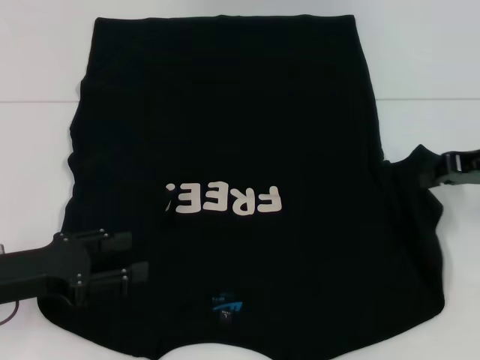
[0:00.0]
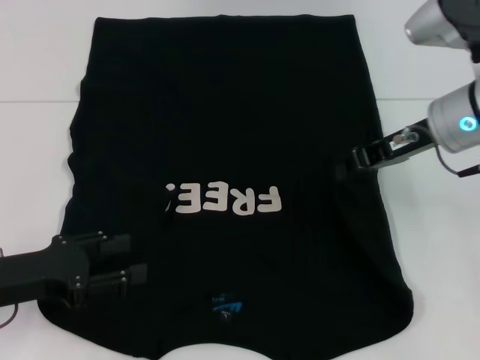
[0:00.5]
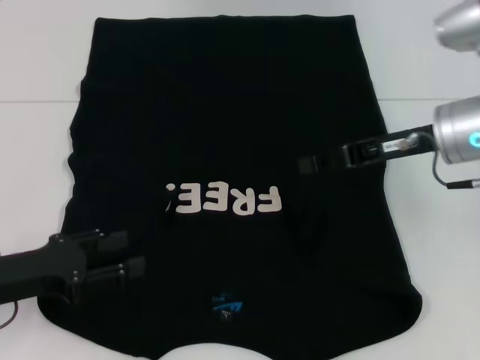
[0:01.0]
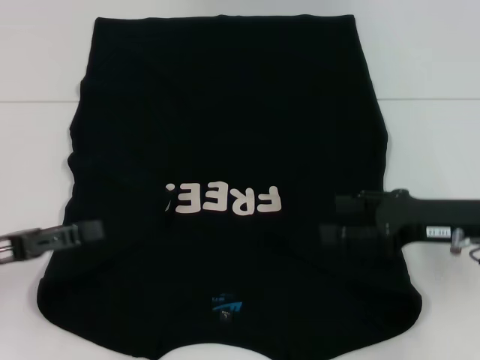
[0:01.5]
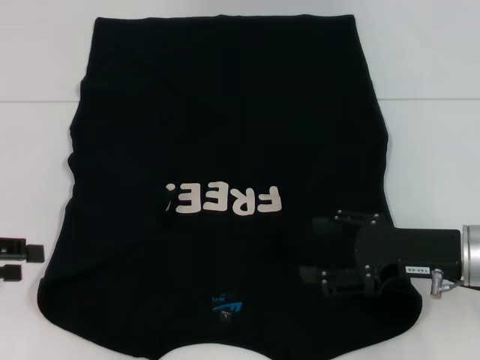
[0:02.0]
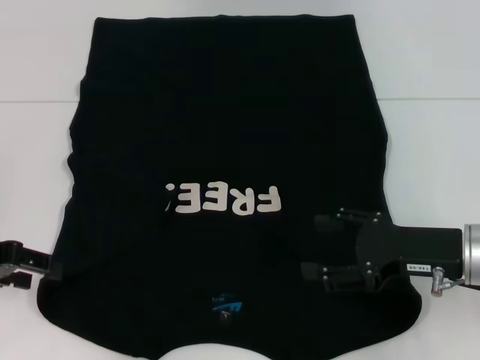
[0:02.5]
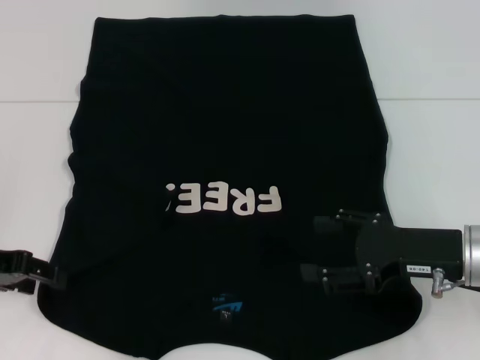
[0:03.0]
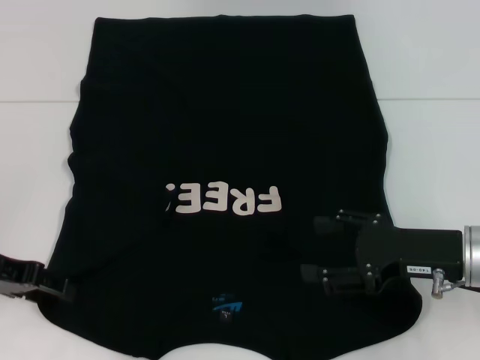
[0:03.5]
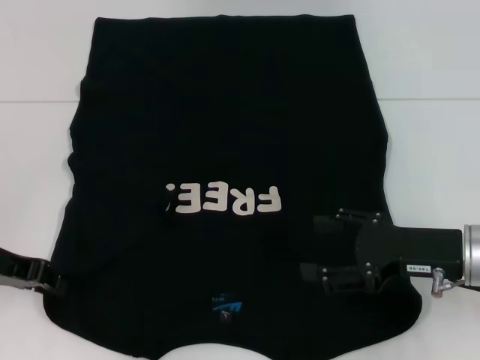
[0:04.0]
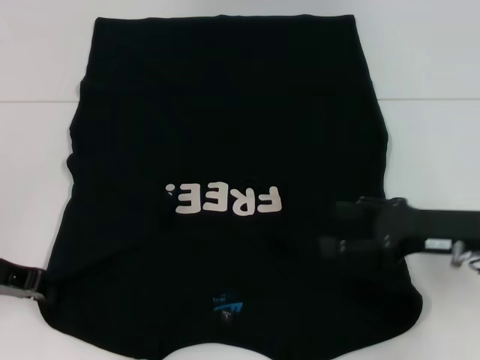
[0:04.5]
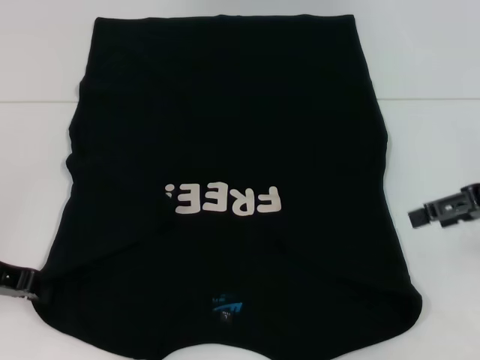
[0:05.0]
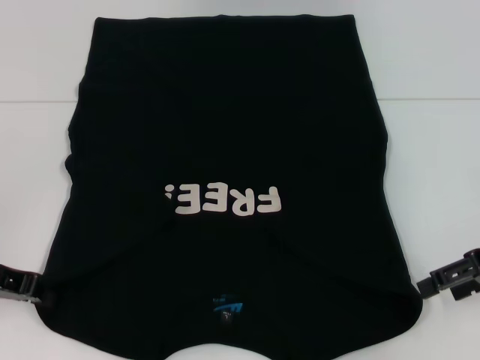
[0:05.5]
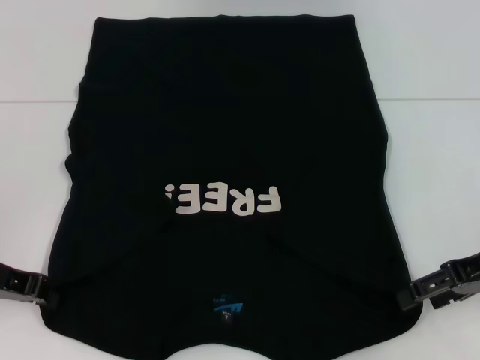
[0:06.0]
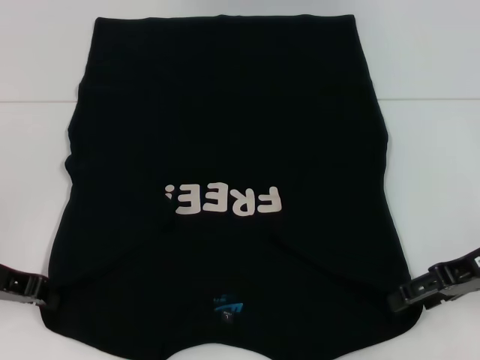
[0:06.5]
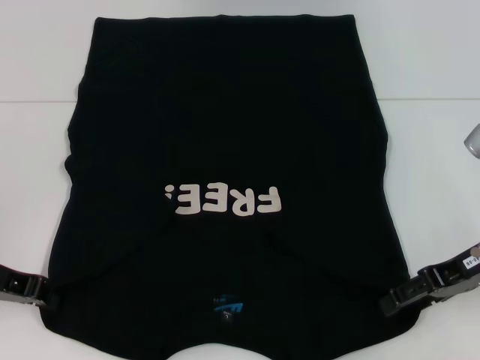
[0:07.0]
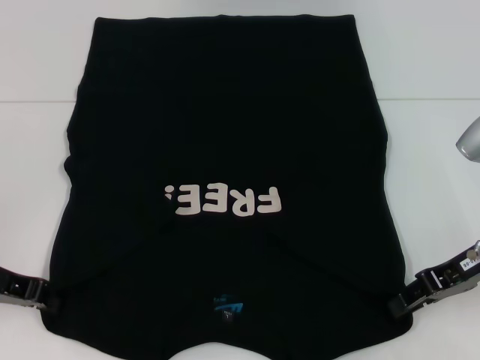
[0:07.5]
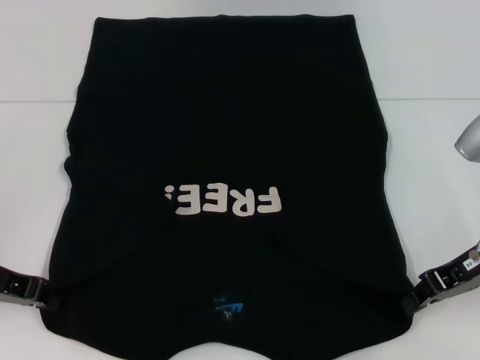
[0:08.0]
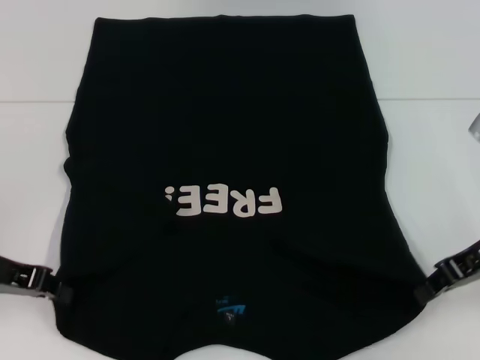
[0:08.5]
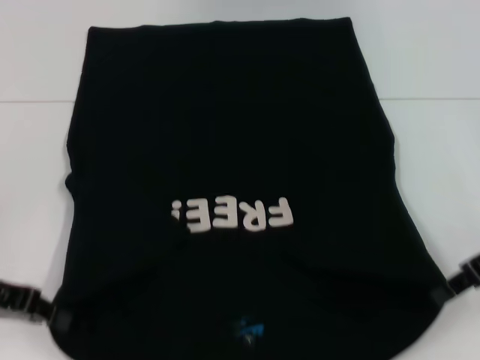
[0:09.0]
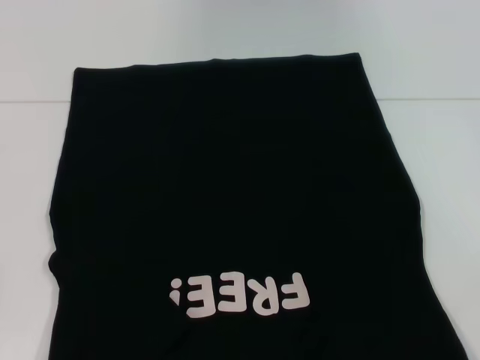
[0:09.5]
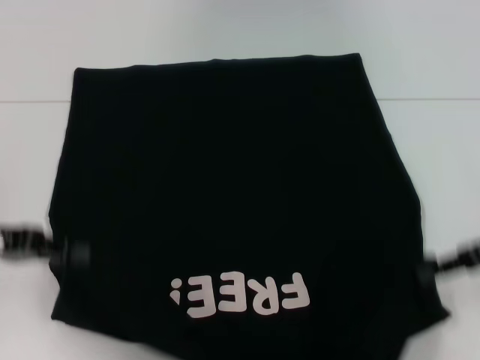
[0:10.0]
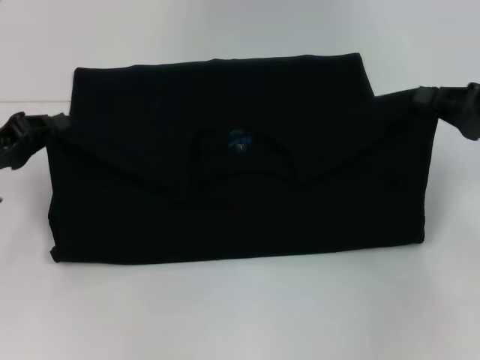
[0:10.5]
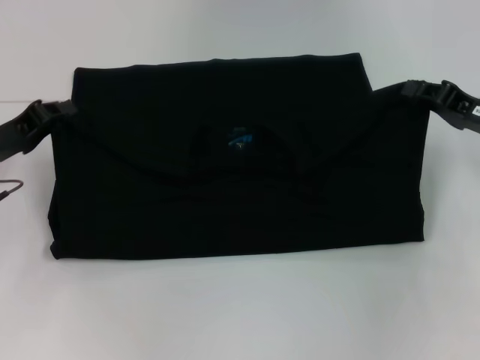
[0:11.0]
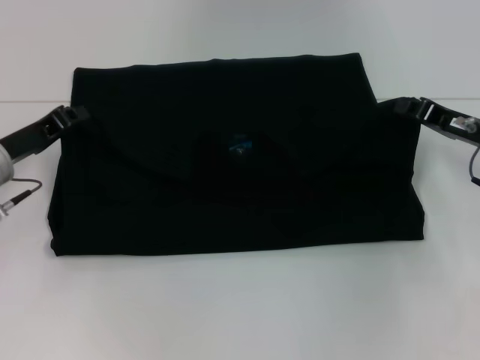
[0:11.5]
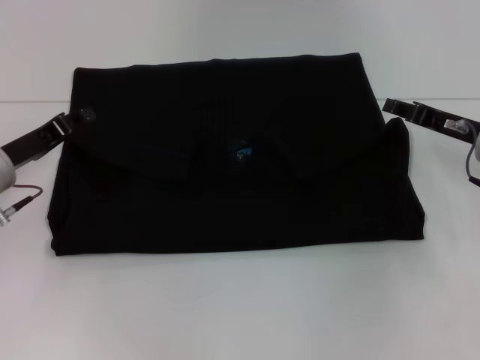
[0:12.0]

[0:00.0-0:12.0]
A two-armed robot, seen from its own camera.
Step, 0:01.5 to 0:04.5: Grab the bottom left corner with your left hand.
Step, 0:05.0 to 0:08.0: Grab the bottom right corner with your right hand.
Step, 0:08.5 to 0:12.0: Fold the clothes with your left hand.
Step, 0:08.5 to 0:12.0: Fold the clothes with your right hand.
0:00.0 to 0:02.0: The right gripper is displaced backward, downward and to the left by some 15 cm, and opens its fingers. The left gripper goes roughly 10 cm to the left and upward.
0:02.0 to 0:04.0: The left gripper shifts about 5 cm to the right.
0:04.0 to 0:06.0: The left gripper closes up; the right gripper moves to the right, approximately 5 cm.
0:06.0 to 0:08.0: The right gripper closes its fingers.
0:08.0 to 0:10.0: The right gripper ends up roughly 5 cm from where it was.
0:10.0 to 0:12.0: Both grippers travel together forward and downward, approximately 10 cm.

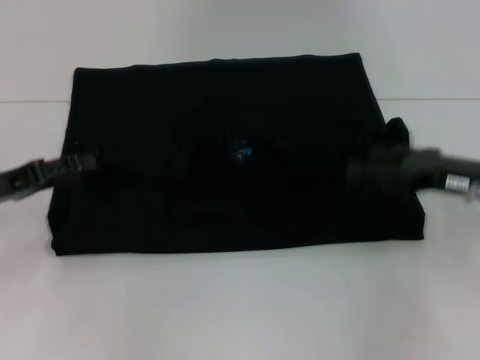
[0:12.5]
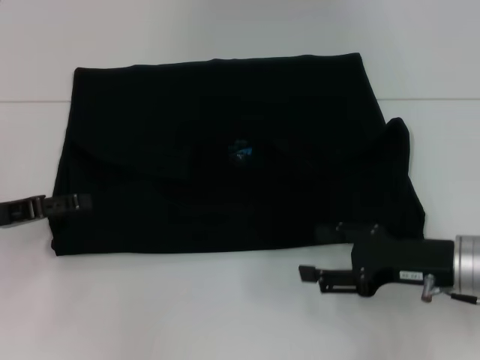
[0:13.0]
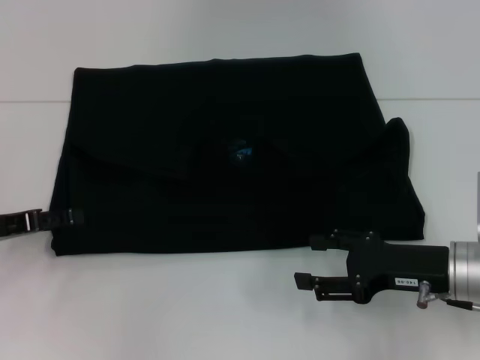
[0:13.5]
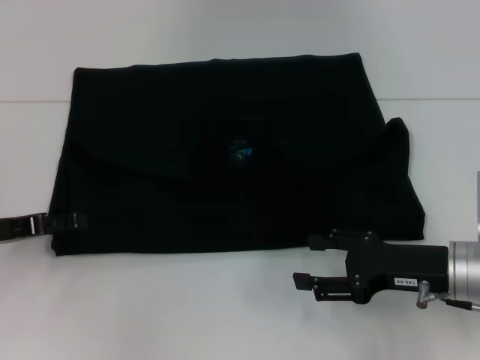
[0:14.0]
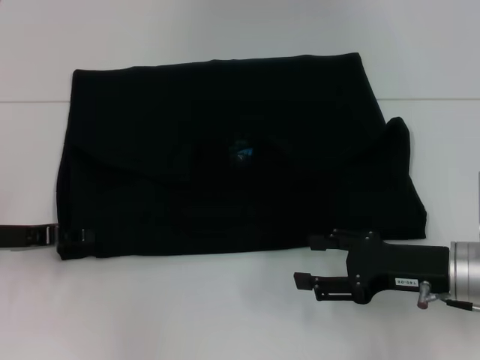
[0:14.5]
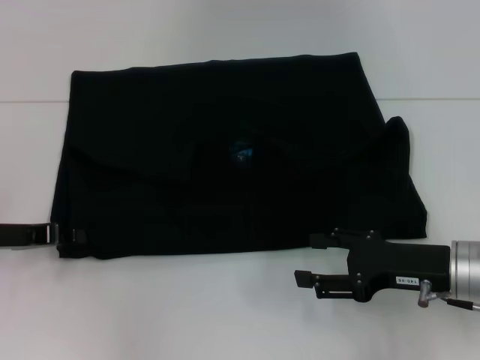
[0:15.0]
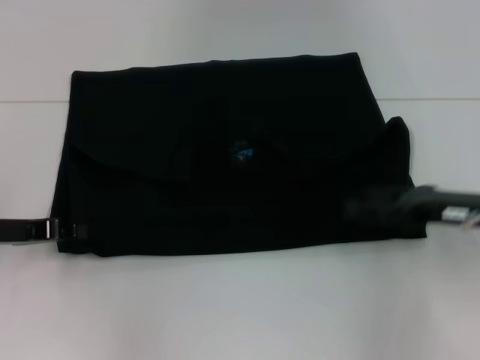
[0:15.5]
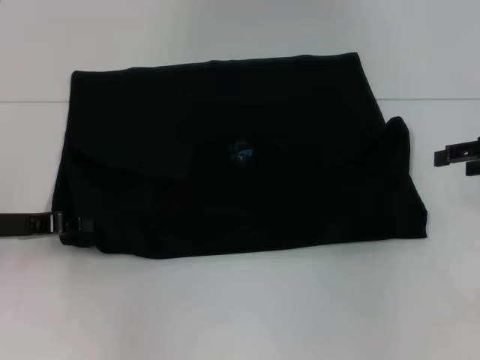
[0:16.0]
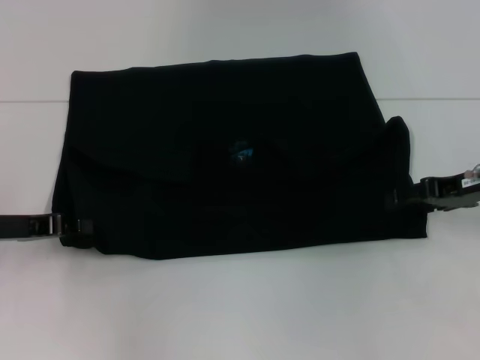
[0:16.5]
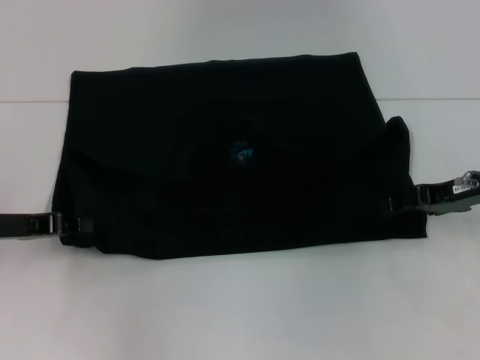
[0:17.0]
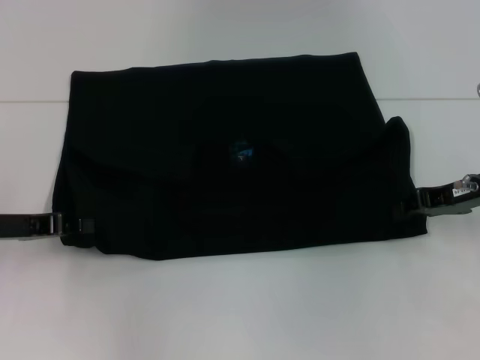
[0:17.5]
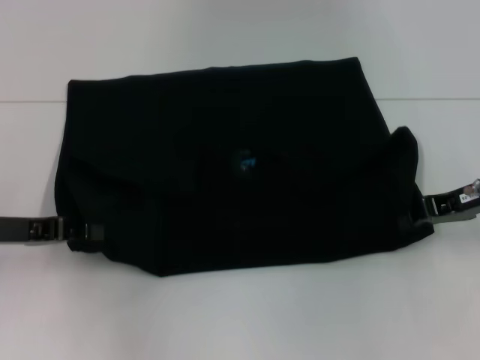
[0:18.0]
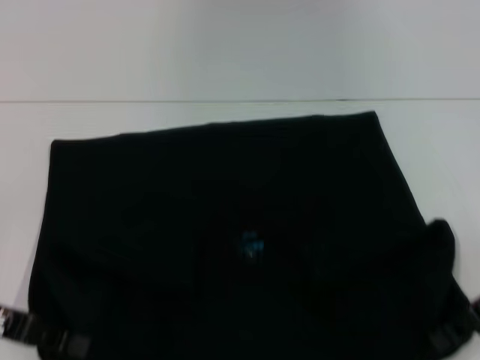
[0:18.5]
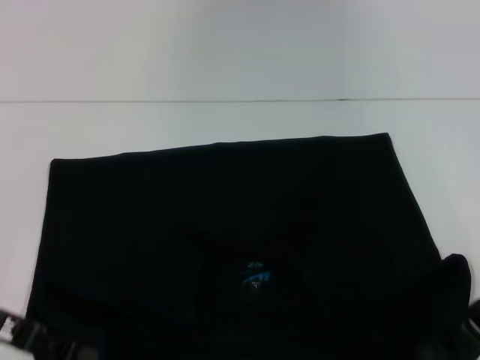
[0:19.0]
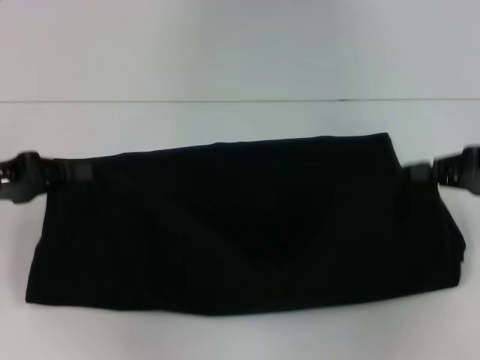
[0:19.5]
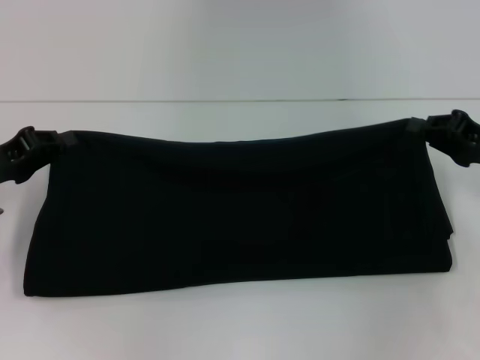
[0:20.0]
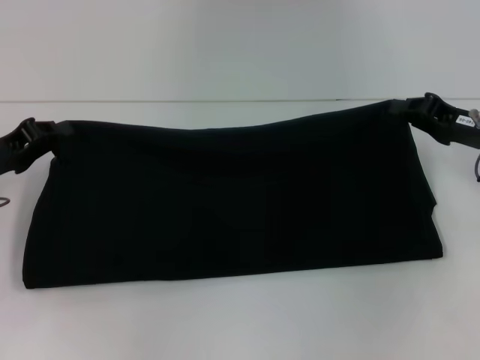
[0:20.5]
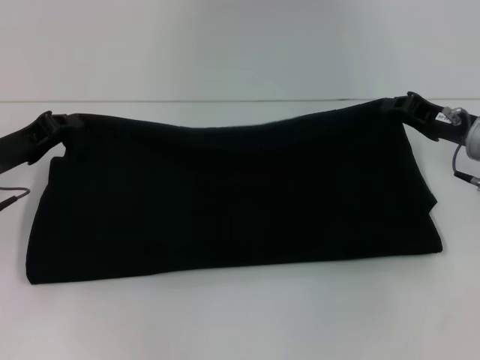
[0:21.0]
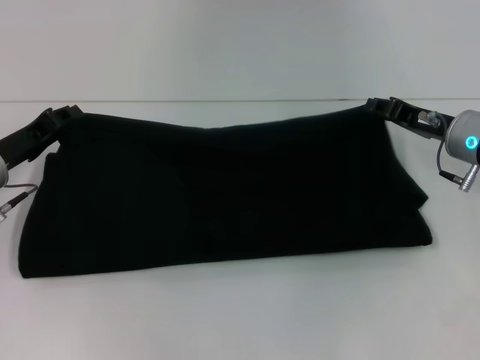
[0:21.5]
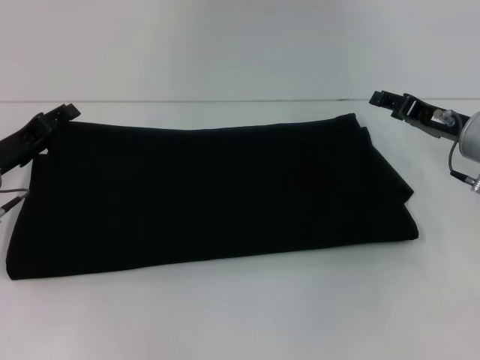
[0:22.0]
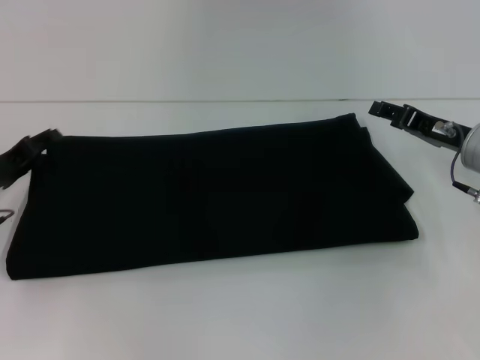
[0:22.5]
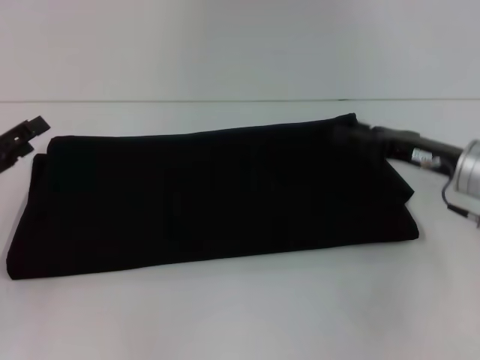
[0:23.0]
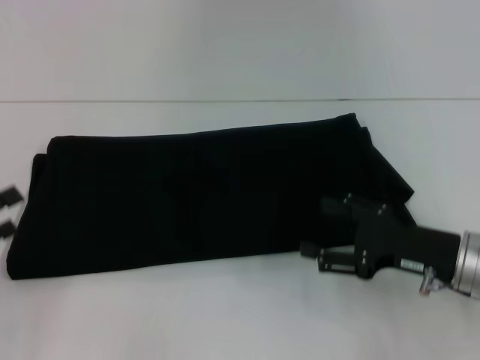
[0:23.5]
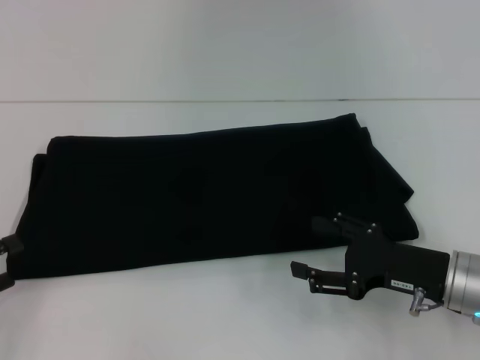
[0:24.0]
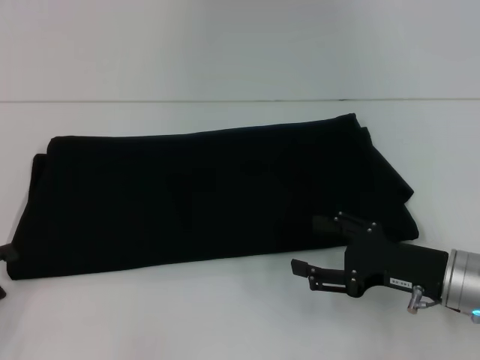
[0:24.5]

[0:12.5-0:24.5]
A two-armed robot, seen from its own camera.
Step, 0:12.5 to 0:18.5: Pull the clothes with your left hand.
Step, 0:12.5 to 0:18.5: Pull the clothes with your right hand.
Step, 0:19.0 to 0:22.5: Fold the clothes with your right hand.
0:12.5 to 0:14.5: The right gripper goes some 5 cm backward.
0:14.5 to 0:16.5: The right gripper heads forward, upward and to the right, covering roughly 15 cm. Meanwhile the left gripper closes up.
0:16.5 to 0:18.5: The two grippers go roughly 5 cm backward. The right gripper closes up.
0:18.5 to 0:20.5: The grippers both shift forward by some 10 cm.
0:20.5 to 0:22.5: The right gripper opens. The left gripper opens its fingers.
0:22.5 to 0:24.5: The left gripper moves backward and to the left, some 15 cm. The right gripper shifts roughly 10 cm backward.

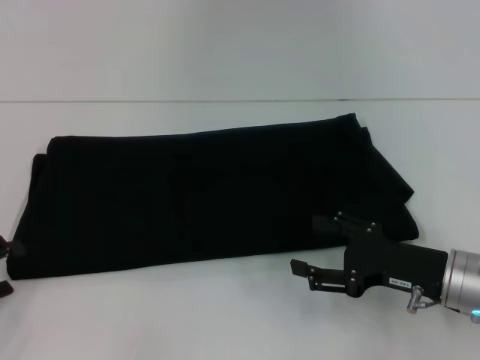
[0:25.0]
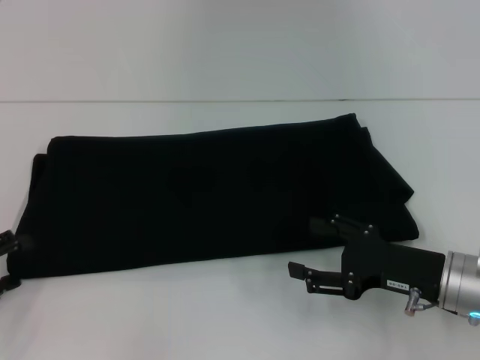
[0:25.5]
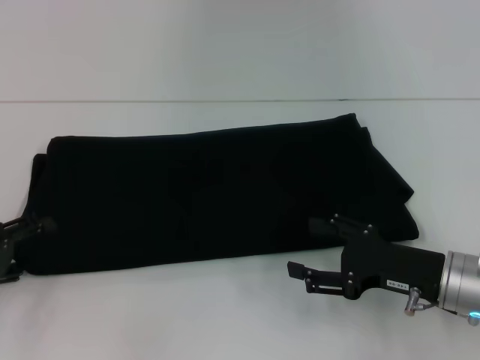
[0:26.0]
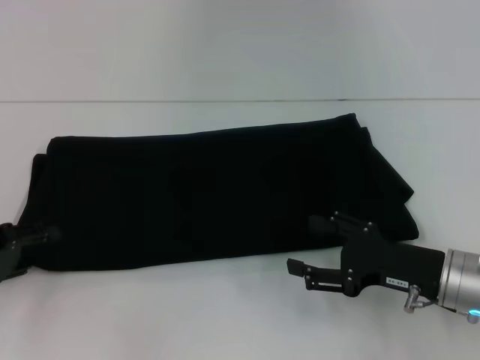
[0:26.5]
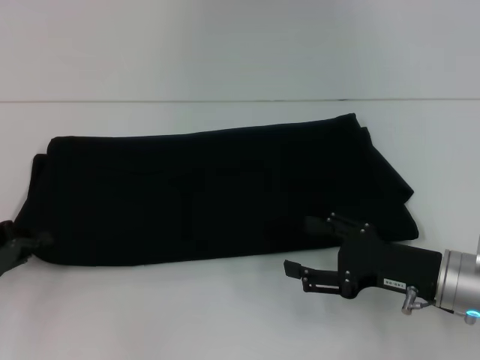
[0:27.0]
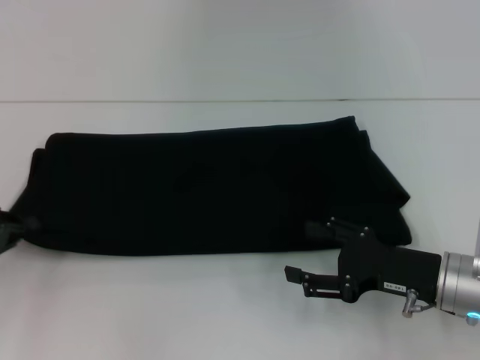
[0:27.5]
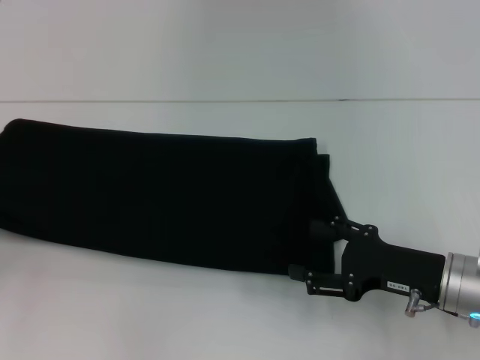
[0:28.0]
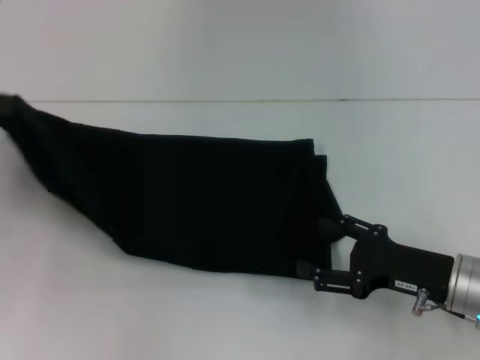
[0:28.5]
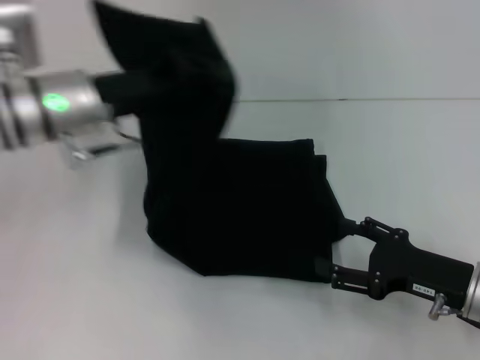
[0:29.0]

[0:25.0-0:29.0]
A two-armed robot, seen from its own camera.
0:25.0 to 0:27.0: The left gripper moves about 5 cm, and closes.
0:27.0 to 0:29.0: The left gripper shifts roughly 20 cm to the right, forward and upward.
